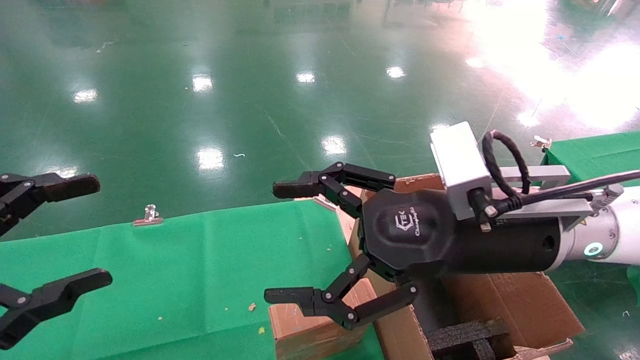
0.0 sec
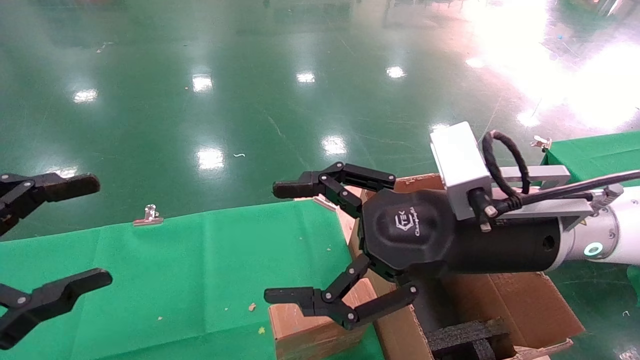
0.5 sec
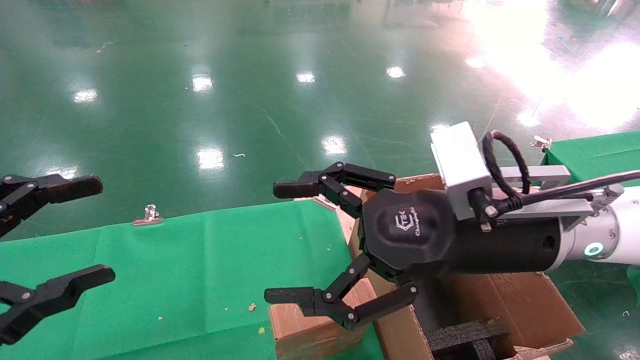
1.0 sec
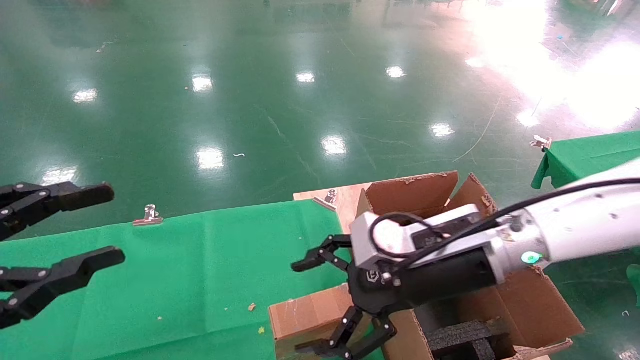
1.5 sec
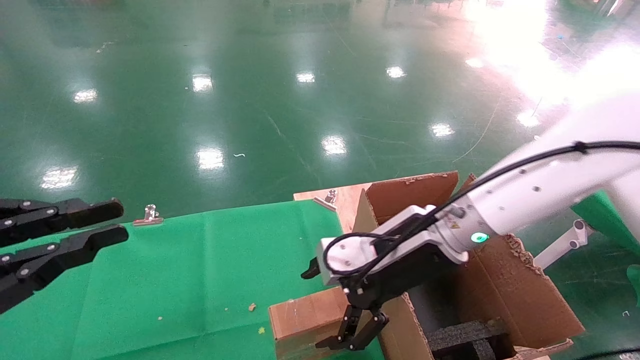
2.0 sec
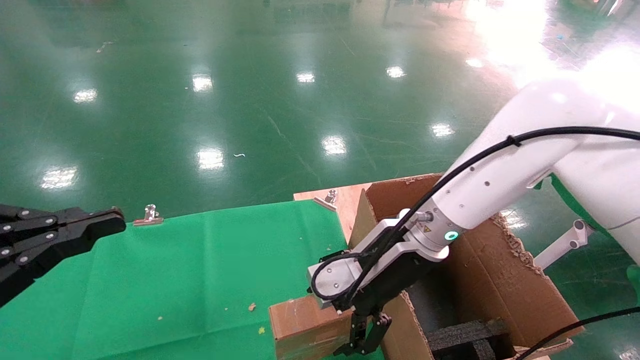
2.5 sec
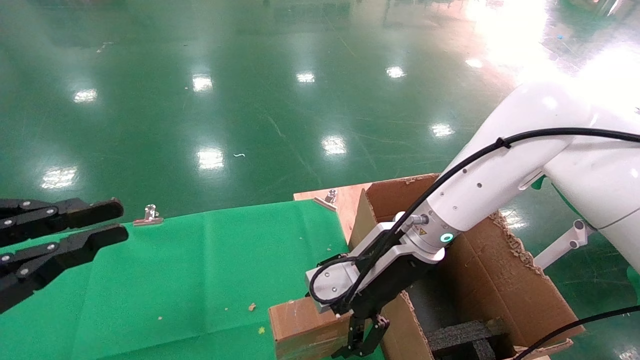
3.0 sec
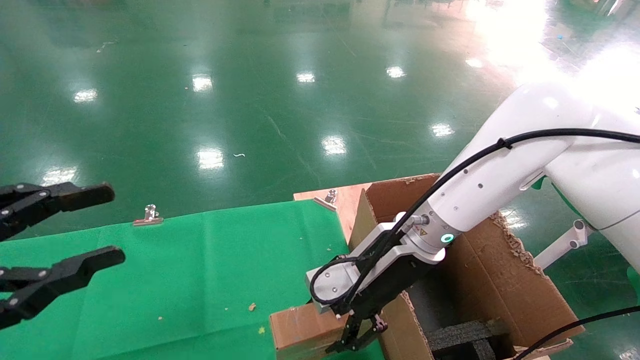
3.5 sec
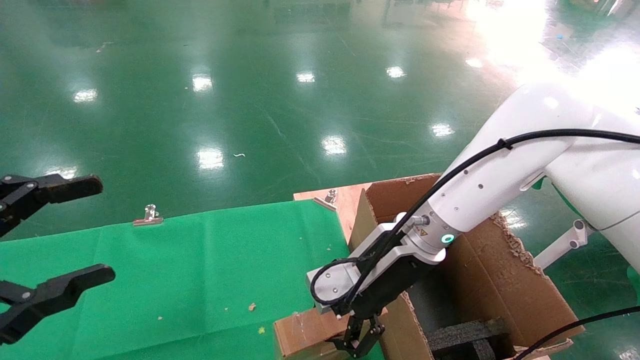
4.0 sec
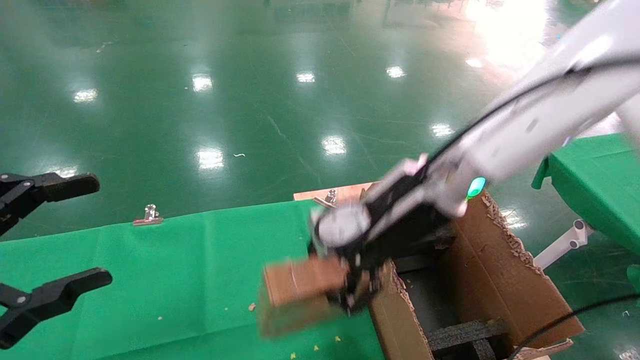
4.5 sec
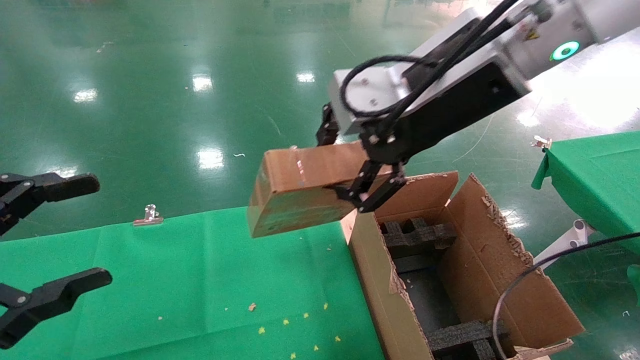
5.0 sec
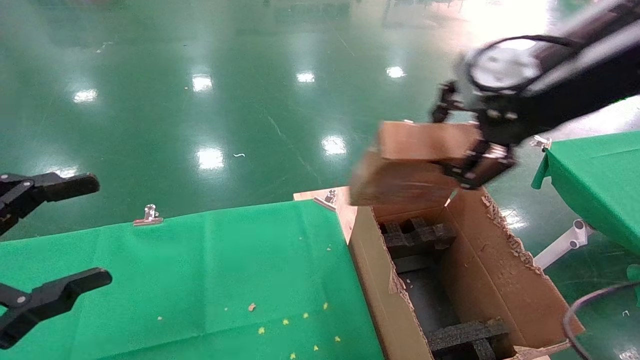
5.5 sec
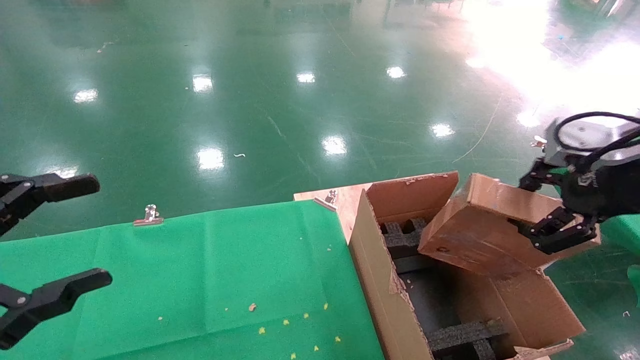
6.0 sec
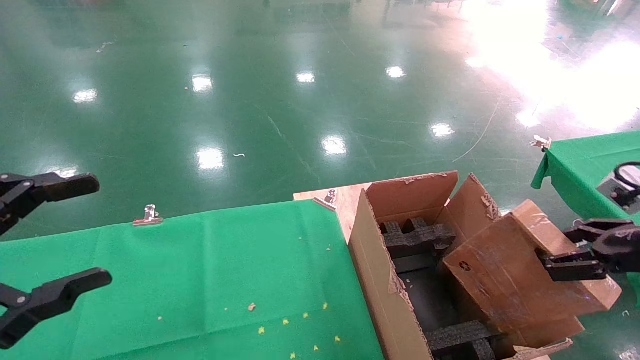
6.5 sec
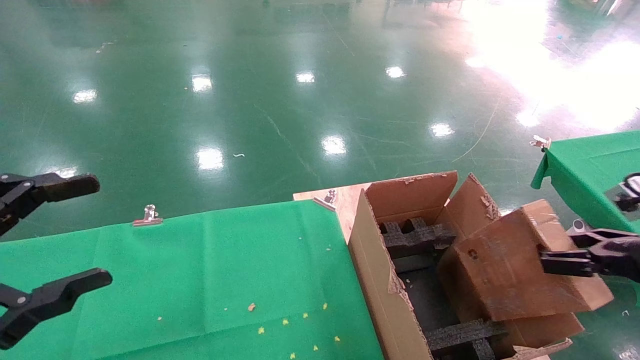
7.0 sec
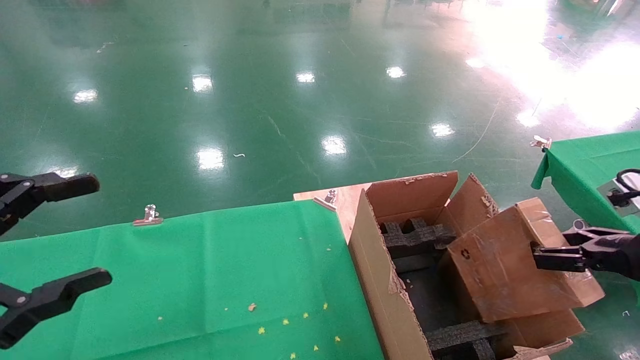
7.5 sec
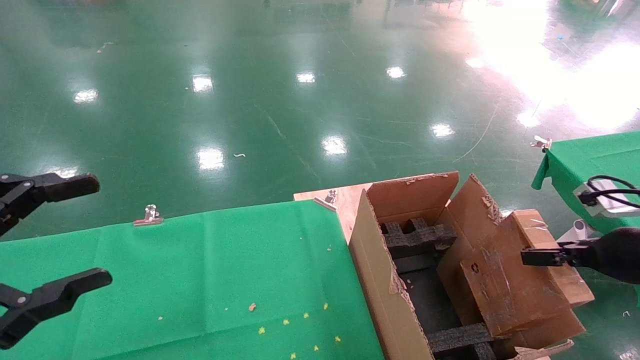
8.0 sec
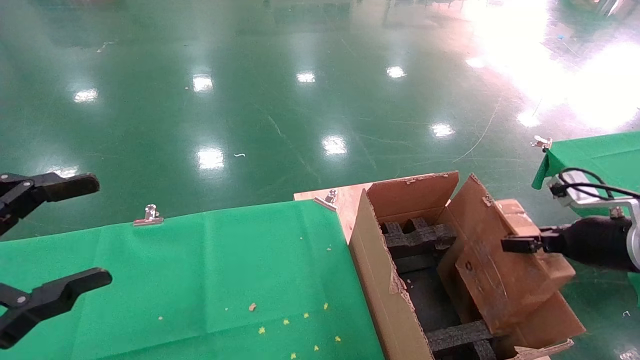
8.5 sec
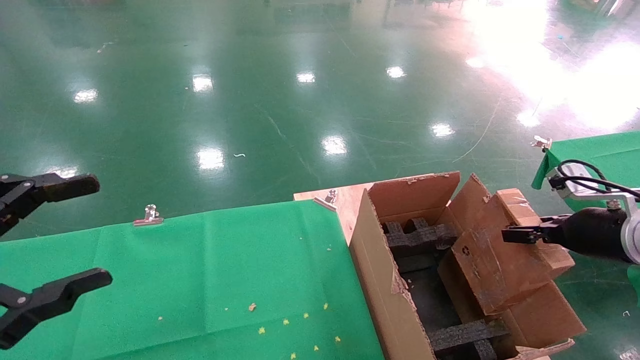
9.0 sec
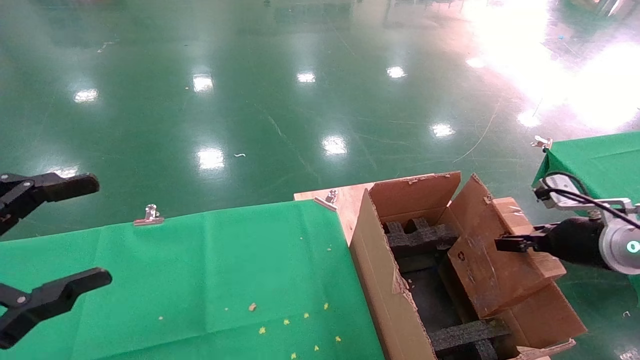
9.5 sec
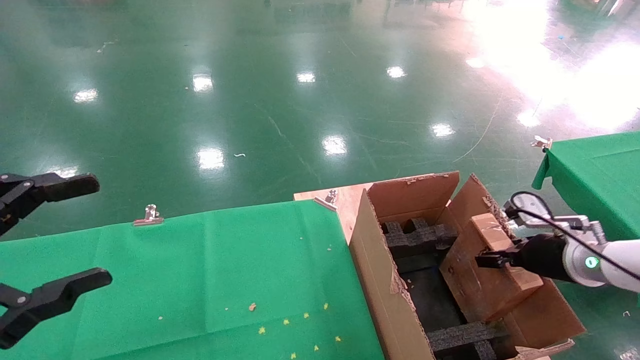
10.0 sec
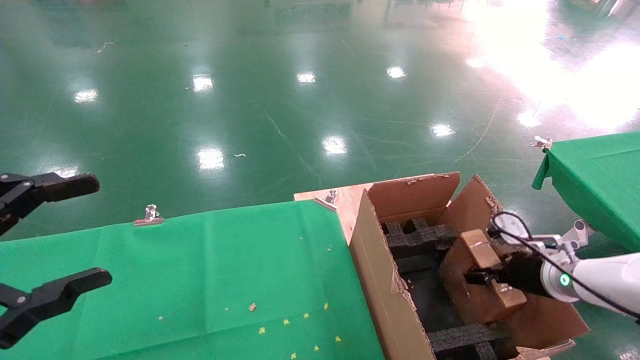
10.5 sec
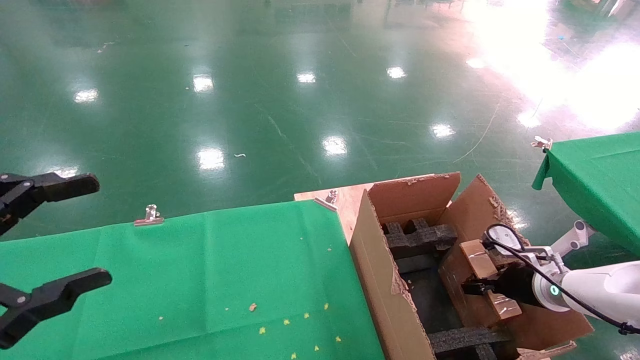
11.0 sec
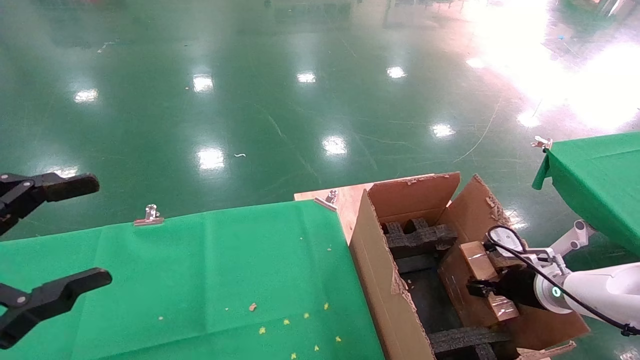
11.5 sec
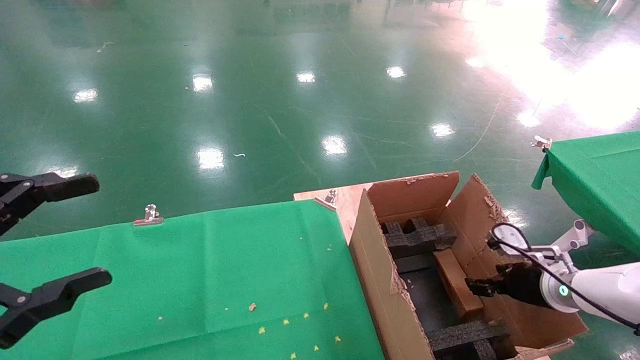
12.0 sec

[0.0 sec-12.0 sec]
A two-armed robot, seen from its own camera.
Task of the whole recording: using a robotic arm to pick up a cardboard box and palace it the carton.
Step, 1.5 sec to 3.5 sec: Pick up the mouse and the power cord paper box.
0.0 sec to 2.0 sec: The left gripper closes up, while the right gripper heads forward and downward, covering approximately 10 cm.
2.0 sec to 4.0 sec: The right gripper closes. The left gripper opens up.
4.0 sec to 6.0 sec: The right gripper heads to the right, upward and backward, covering roughly 30 cm.
6.0 sec to 8.0 sec: The right gripper moves downward and to the right, approximately 15 cm.
8.0 sec to 10.0 sec: The right gripper goes about 10 cm forward and downward.
10.0 sec to 12.0 sec: The right gripper is displaced downward by about 5 cm, and opens up.

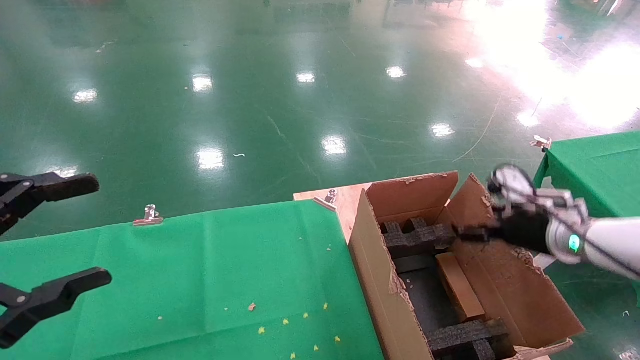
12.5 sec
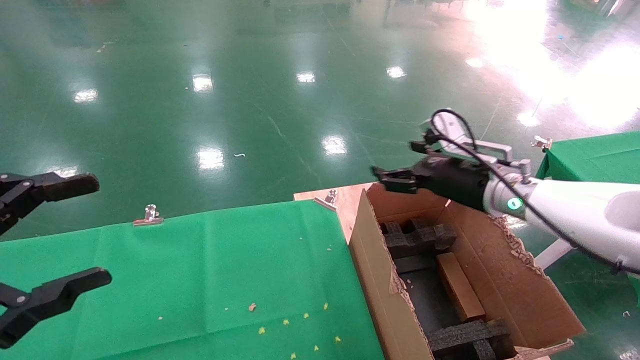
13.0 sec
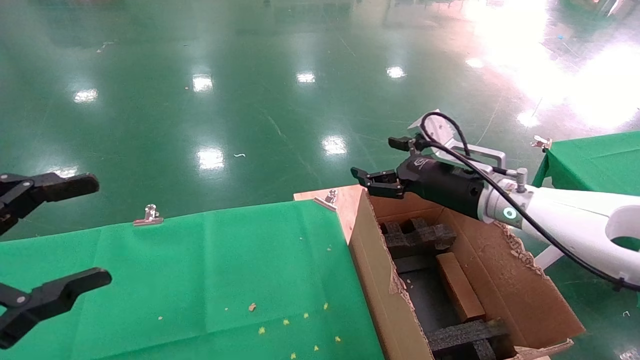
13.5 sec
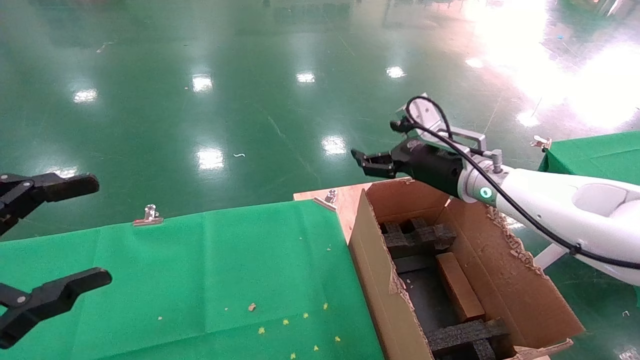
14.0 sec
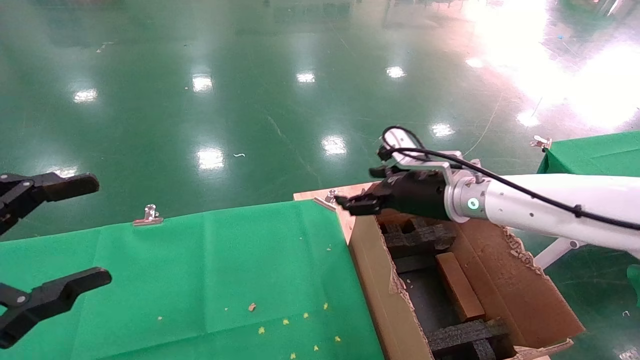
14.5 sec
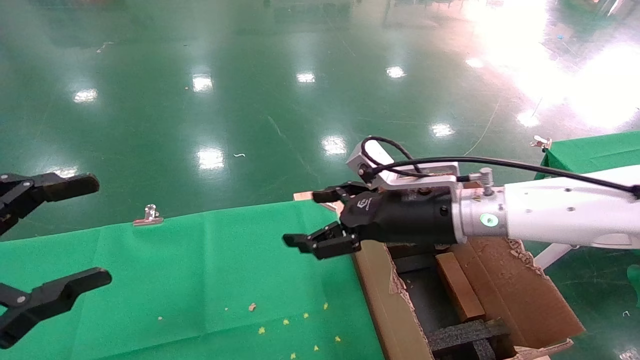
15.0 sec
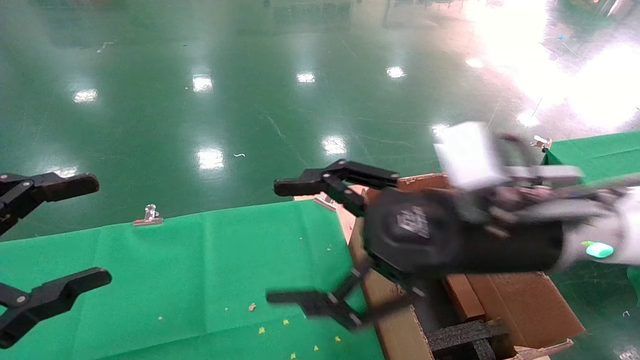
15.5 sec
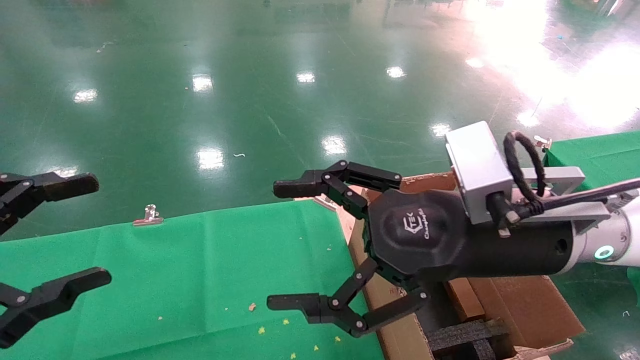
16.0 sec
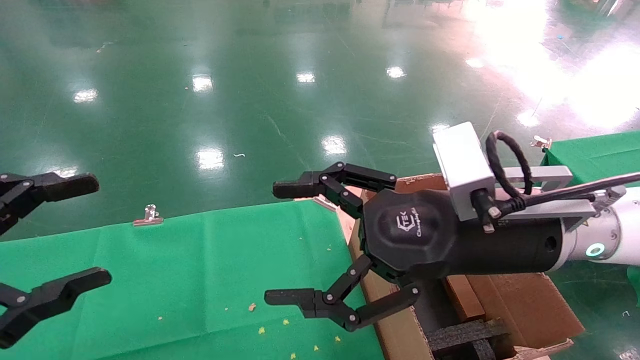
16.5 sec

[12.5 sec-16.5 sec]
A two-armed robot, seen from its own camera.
Task of the whole recording: using a robotic arm to pick up a cardboard box and palace it the carton.
12.5 sec to 14.5 sec: The right gripper shifts roughly 15 cm to the left.
14.5 sec to 16.5 sec: The right gripper is displaced backward by about 15 cm.
